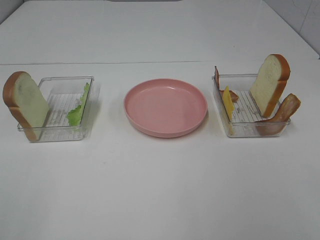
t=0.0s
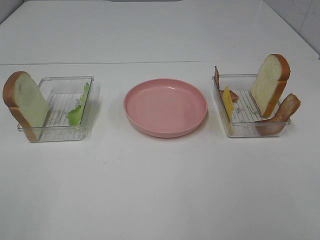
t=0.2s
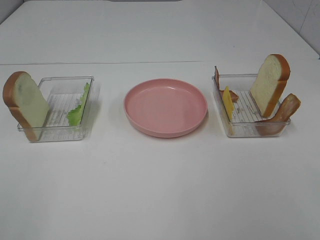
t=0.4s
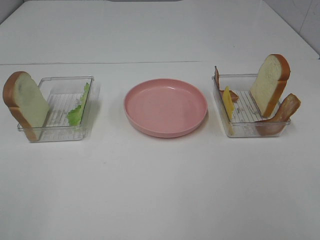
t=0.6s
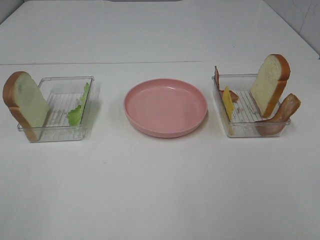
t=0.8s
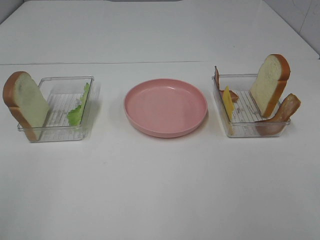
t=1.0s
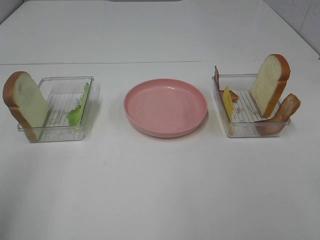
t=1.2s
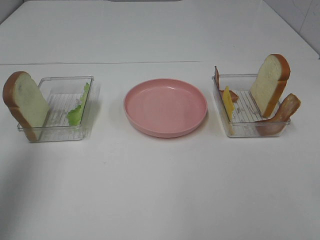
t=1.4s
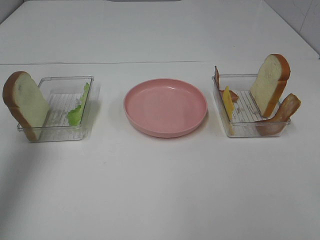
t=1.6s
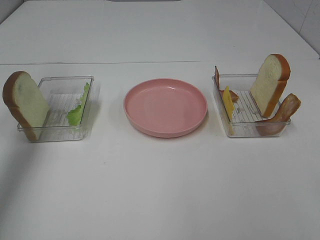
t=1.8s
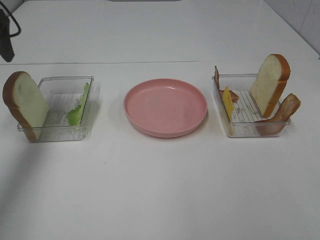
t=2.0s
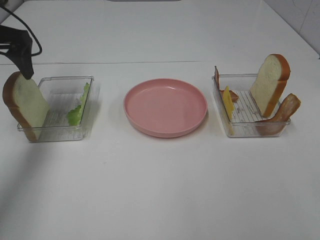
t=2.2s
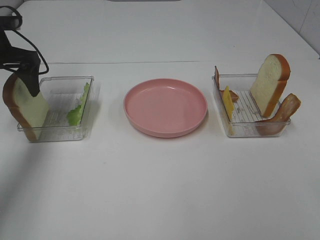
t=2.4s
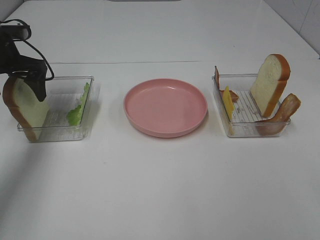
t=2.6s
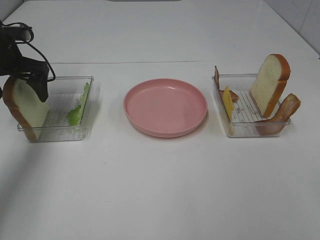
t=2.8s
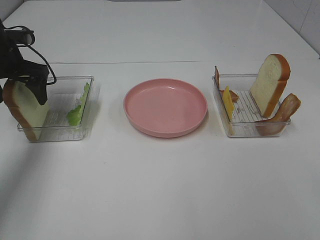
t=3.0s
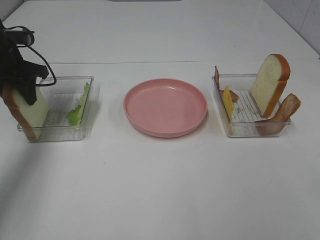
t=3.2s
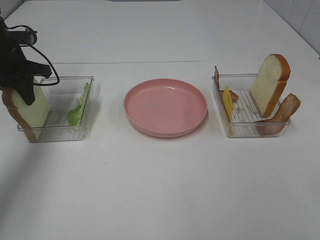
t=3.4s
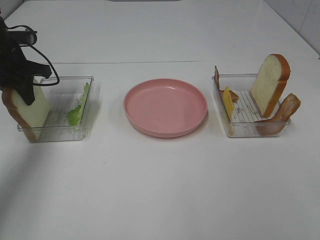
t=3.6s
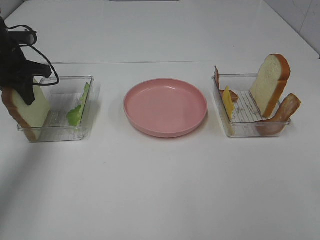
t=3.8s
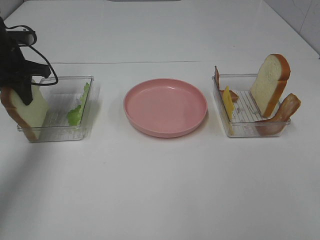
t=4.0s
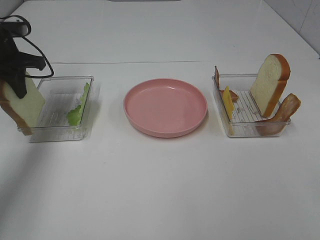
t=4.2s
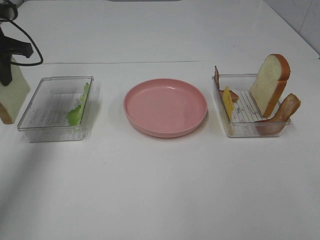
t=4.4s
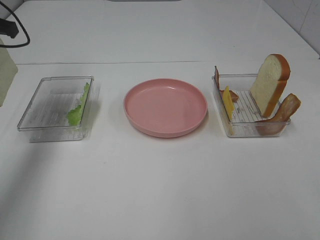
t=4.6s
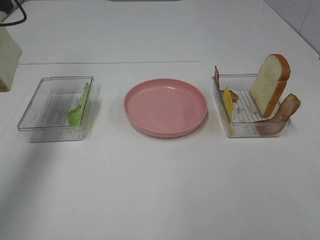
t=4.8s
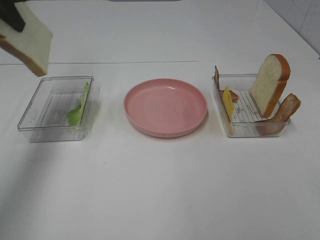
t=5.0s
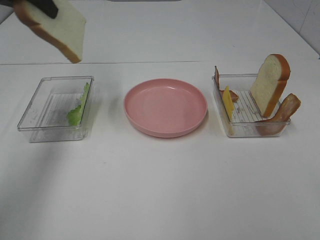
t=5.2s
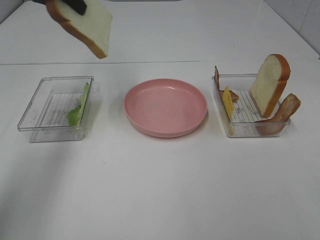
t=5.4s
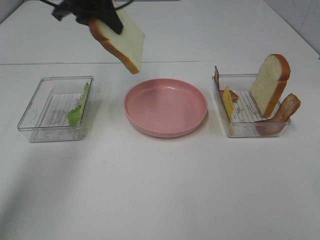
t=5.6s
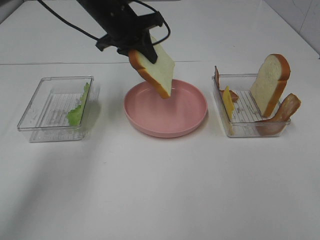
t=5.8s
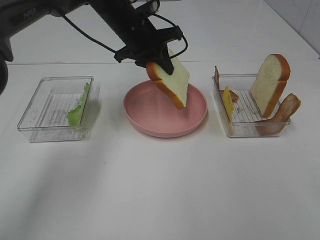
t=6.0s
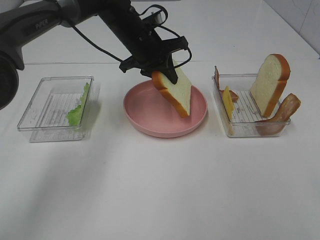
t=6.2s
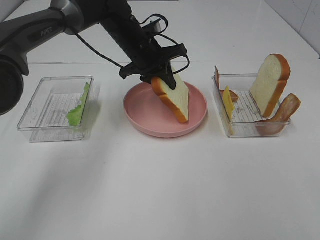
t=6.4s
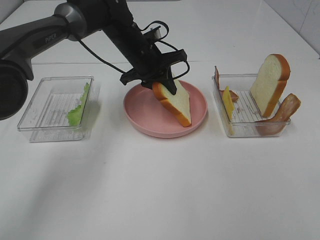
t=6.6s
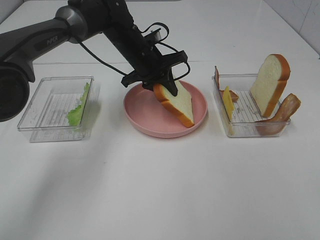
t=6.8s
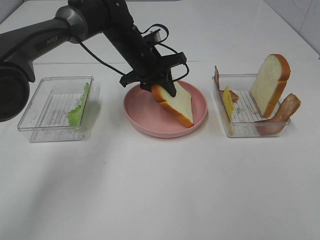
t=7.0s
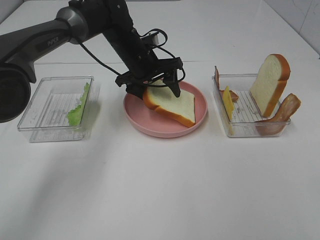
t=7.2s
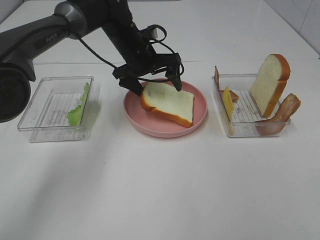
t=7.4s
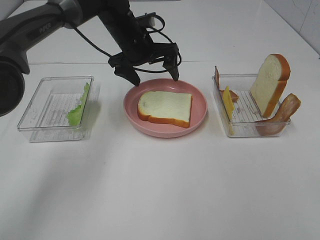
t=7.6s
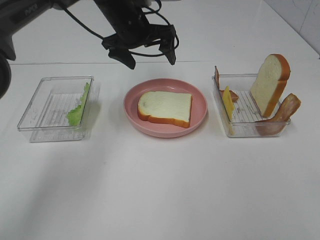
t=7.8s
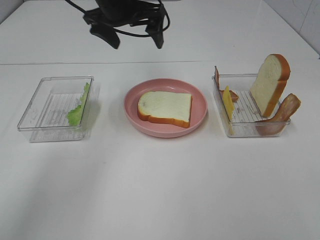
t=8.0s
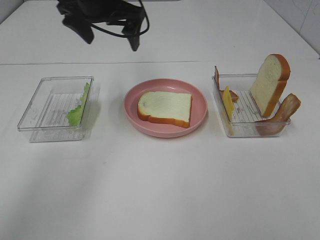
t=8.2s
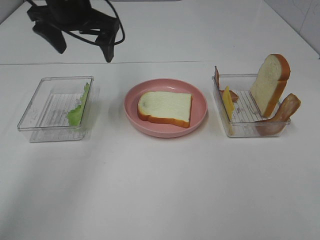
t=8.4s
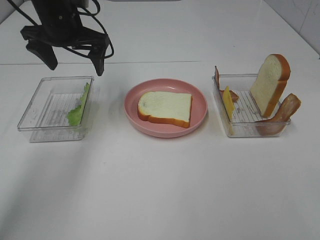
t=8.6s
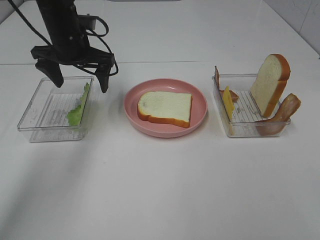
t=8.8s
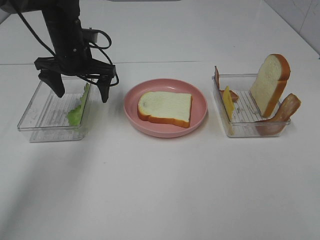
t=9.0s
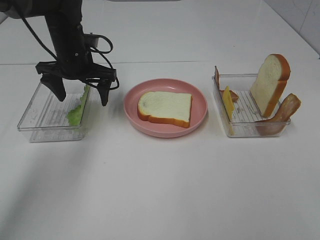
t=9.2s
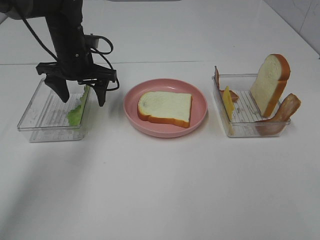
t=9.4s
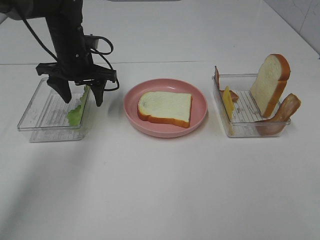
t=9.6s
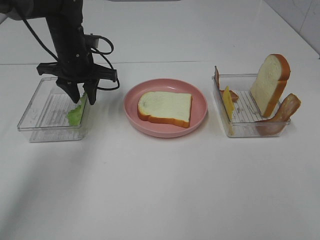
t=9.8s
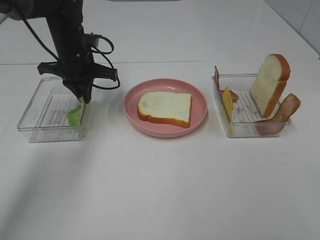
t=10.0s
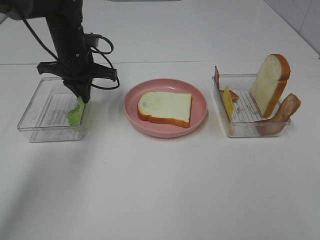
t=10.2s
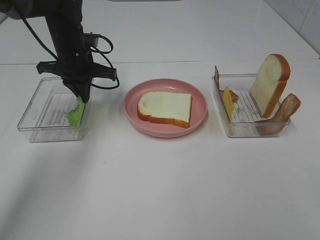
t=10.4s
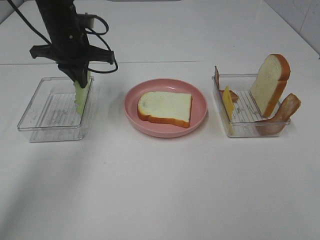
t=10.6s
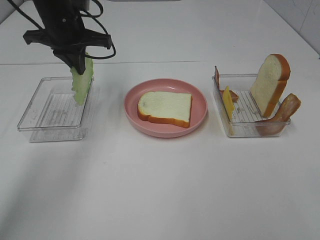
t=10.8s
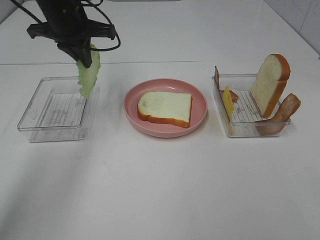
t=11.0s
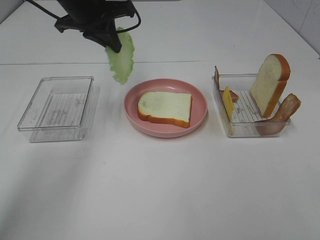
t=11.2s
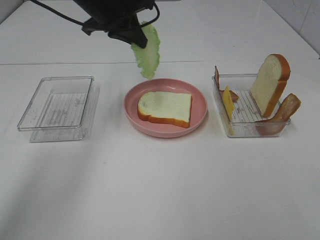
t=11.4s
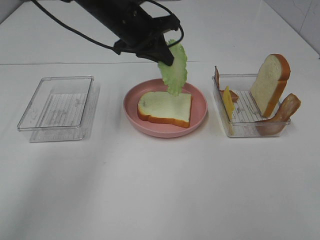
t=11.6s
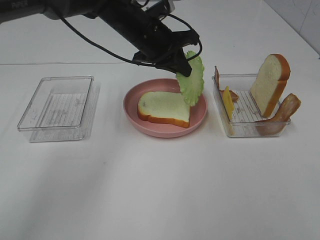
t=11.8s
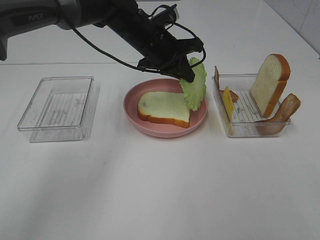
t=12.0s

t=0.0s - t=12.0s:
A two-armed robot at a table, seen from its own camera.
Task of the whole recording: Make sandwiches.
Step, t=0.0s - t=3.8s: Left hand:grab the bread slice.
Step, t=4.0s - t=7.6s: Left hand:place the bread slice on the plate.
Step, t=7.8s - t=10.4s: Left hand:grab the lettuce slice.
t=0.0s - t=1.6s: The left gripper heads forward, covering some 30 cm.
t=1.6s - t=3.0s: The left gripper heads downward and forward, covering roughly 25 cm.
t=3.0s - t=4.4s: The left gripper heads upward, covering roughly 5 cm, and closes up.
t=4.4s - t=6.0s: The left gripper goes some 25 cm to the right.
t=6.0s - t=7.6s: The left gripper opens its fingers.
t=7.6s - t=9.0s: The left gripper shifts approximately 10 cm to the left, and goes upward and returns, approximately 10 cm each way.
t=9.0s - t=10.4s: The left gripper closes up.
t=10.4s - t=12.0s: The left gripper moves to the right, about 15 cm.

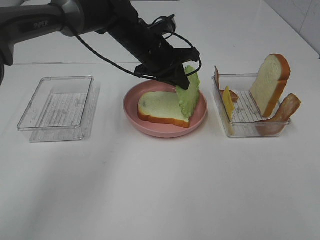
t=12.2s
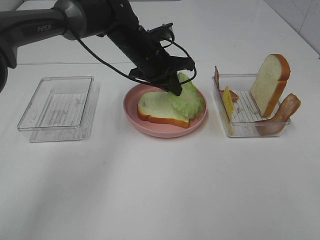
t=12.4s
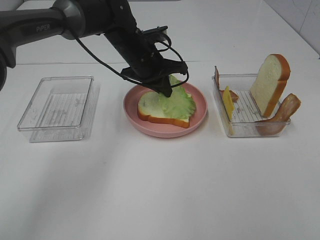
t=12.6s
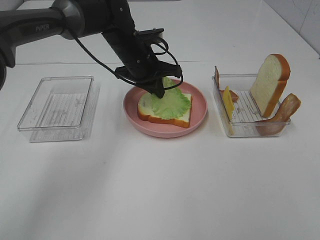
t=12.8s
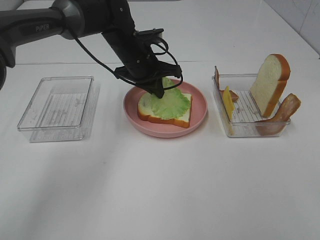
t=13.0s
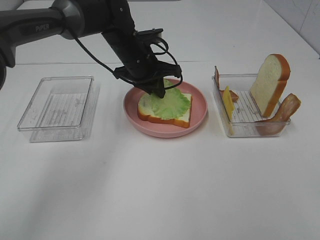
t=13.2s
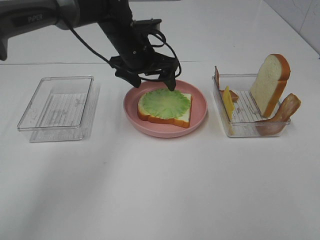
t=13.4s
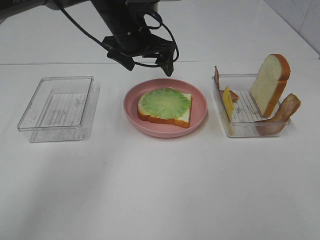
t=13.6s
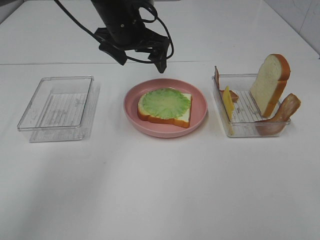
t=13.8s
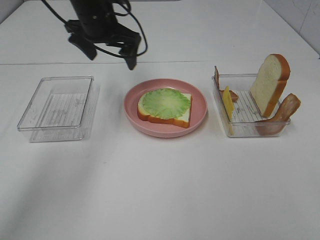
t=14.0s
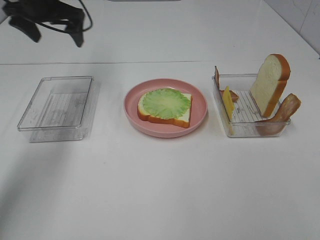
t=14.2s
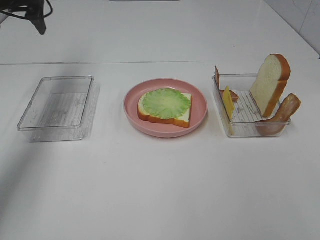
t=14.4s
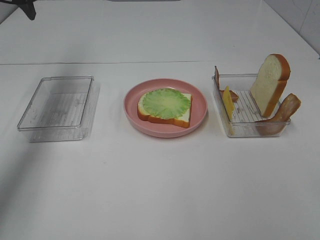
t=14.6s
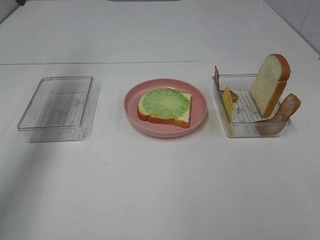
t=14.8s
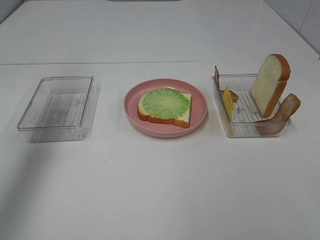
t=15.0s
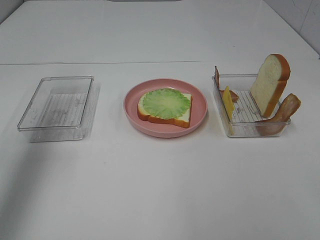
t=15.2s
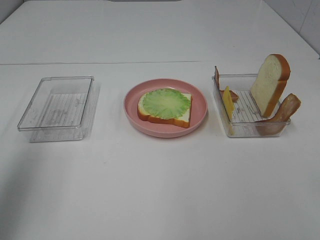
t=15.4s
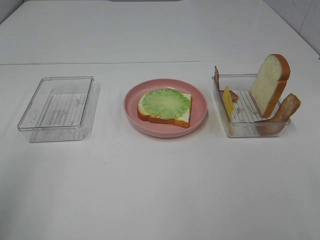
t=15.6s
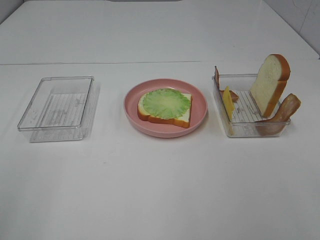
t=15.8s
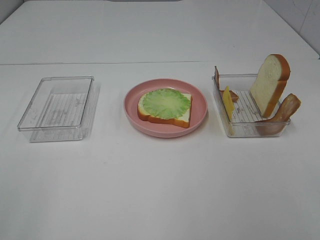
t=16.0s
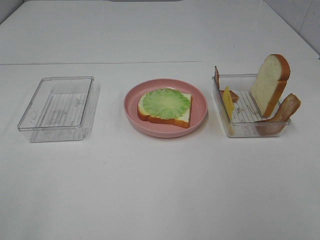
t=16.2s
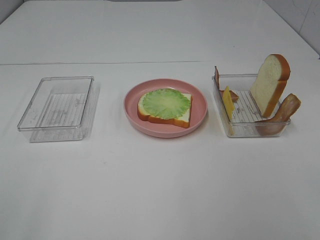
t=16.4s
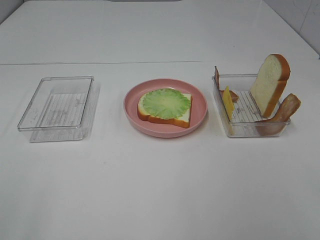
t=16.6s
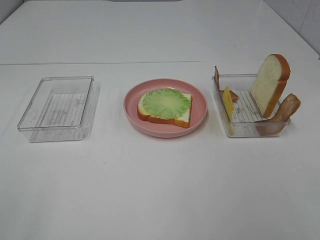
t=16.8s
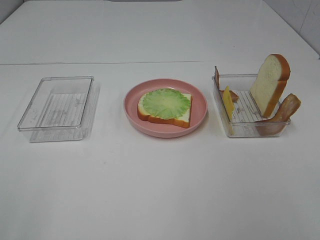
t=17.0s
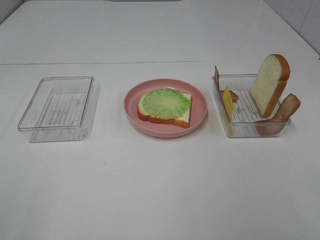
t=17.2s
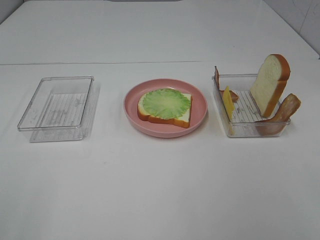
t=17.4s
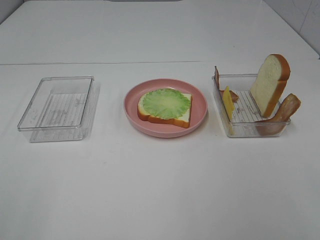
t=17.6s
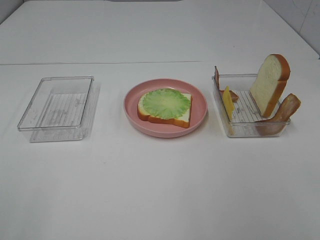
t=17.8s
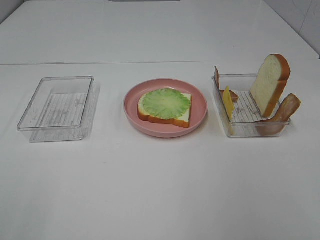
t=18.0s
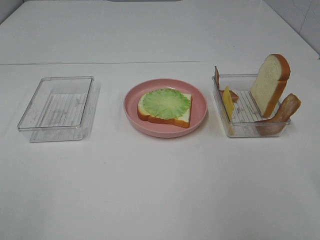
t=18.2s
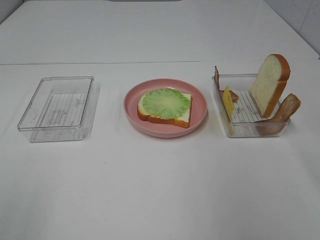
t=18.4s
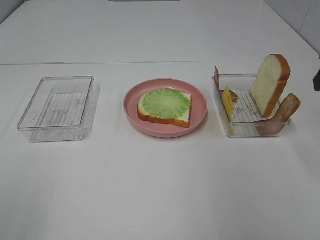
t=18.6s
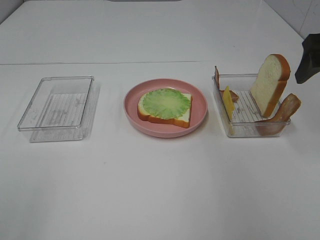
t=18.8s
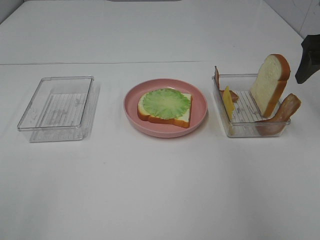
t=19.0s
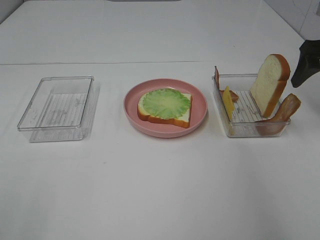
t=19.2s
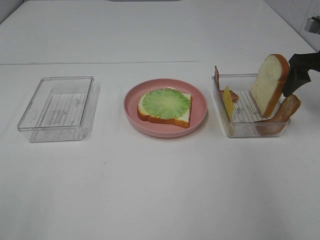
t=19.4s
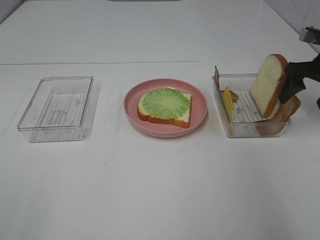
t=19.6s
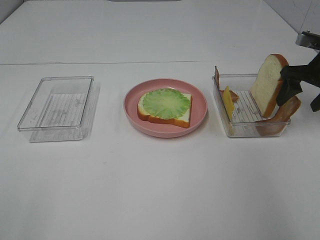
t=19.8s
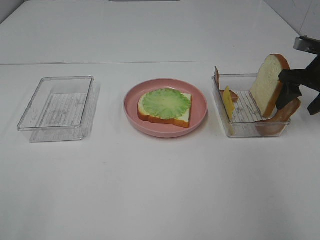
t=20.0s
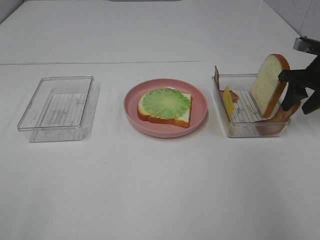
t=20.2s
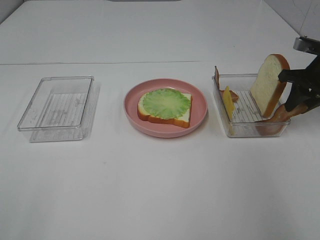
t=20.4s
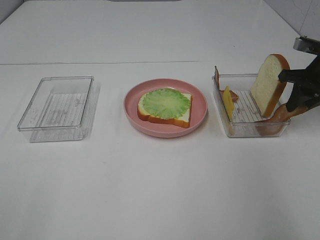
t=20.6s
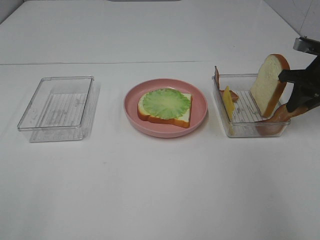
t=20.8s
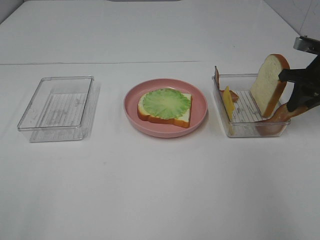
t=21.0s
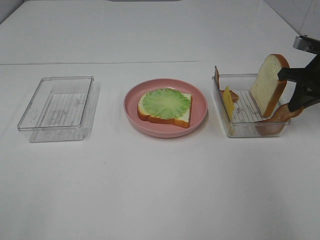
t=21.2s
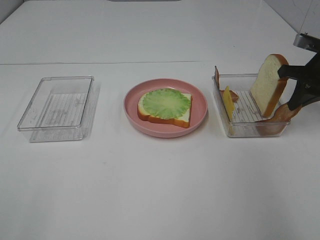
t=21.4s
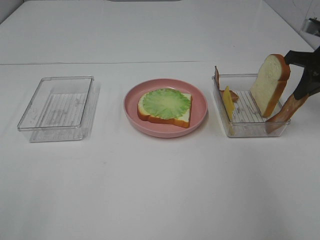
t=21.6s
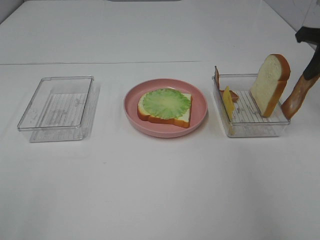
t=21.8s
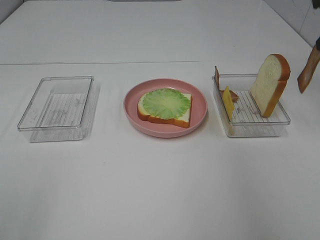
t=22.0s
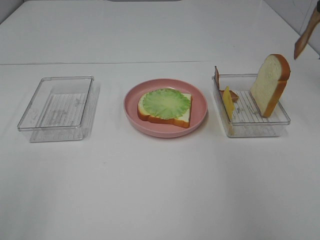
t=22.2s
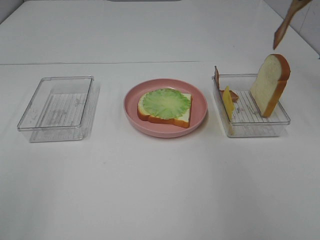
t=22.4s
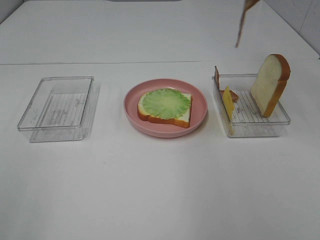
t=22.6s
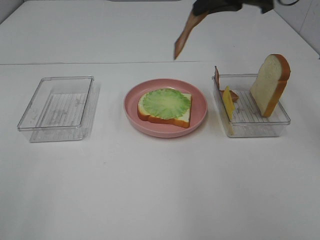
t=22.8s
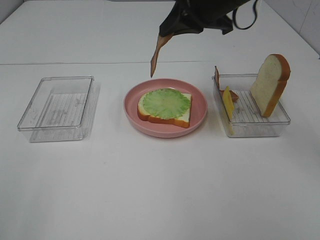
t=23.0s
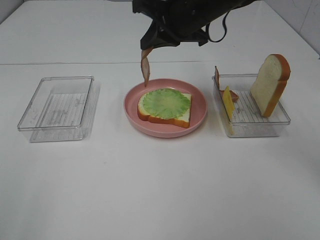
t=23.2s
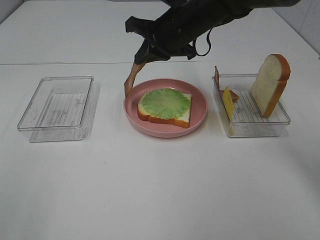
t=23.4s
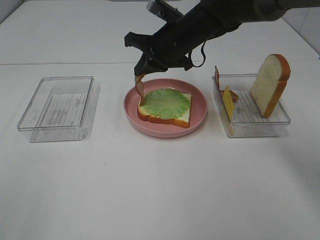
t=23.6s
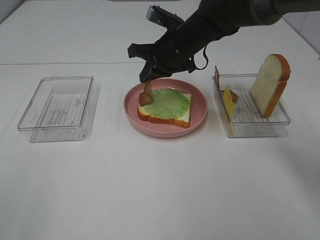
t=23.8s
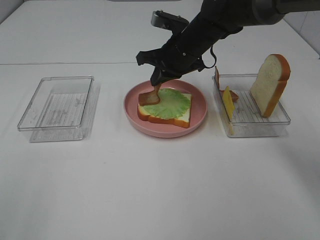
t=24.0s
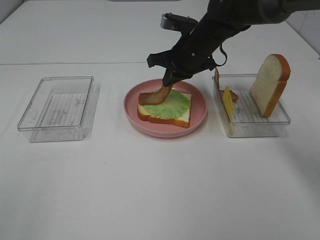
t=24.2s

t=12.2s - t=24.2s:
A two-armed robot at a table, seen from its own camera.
Task of the whole recording: Make sandwiches.
Step, t=14.0s - t=20.8s: Right hand:grab the bacon.
t=12.2s - t=13.8s: The left gripper travels upward by approximately 5 cm, and opens up.
t=13.8s - t=15.2s: The left gripper heads to the left, backward and upward, covering roughly 35 cm.
t=15.2s - t=16.6s: The left gripper moves backward, some 25 cm.
t=18.2s - t=19.8s: The right gripper is displaced forward and downward by approximately 30 cm.
t=19.8s - t=21.2s: The right gripper closes its fingers.
t=21.2s - t=22.6s: The right gripper shifts approximately 25 cm upward and to the left.
t=22.6s - t=24.2s: The right gripper is displaced downward, to the left and forward by some 25 cm.
